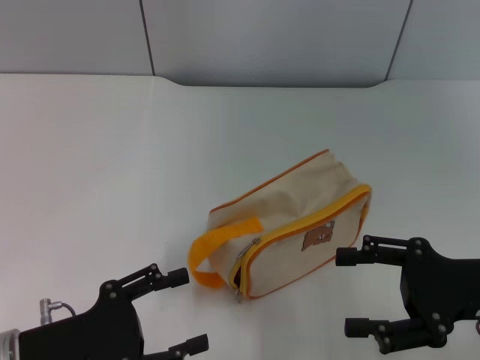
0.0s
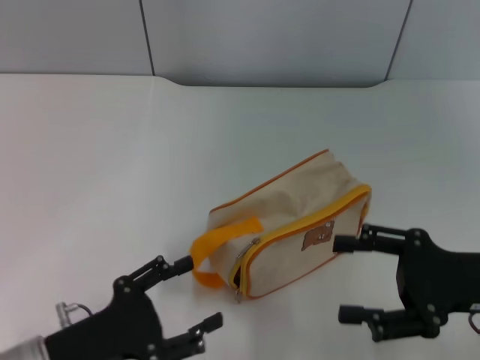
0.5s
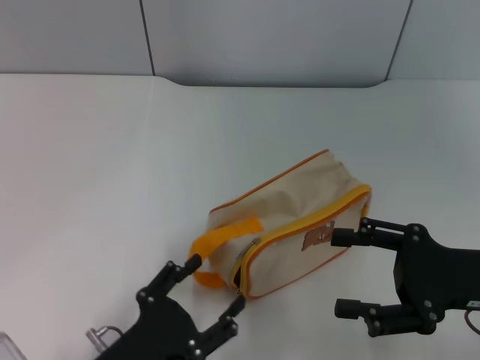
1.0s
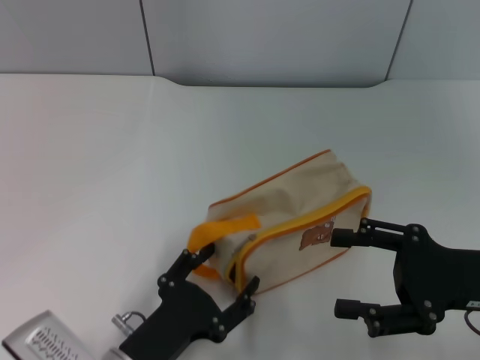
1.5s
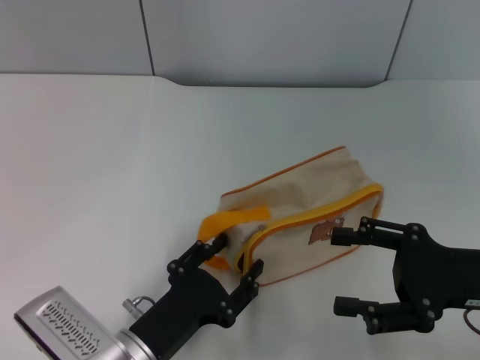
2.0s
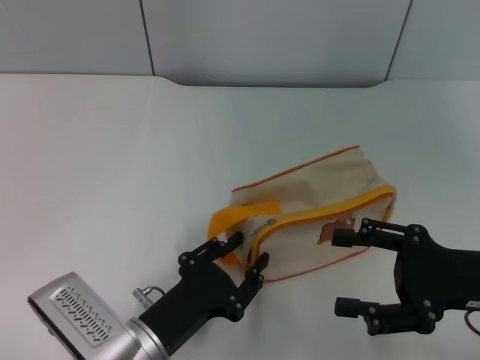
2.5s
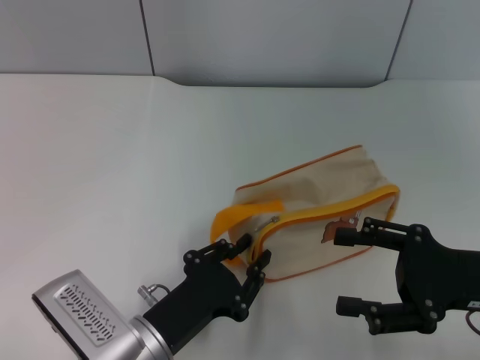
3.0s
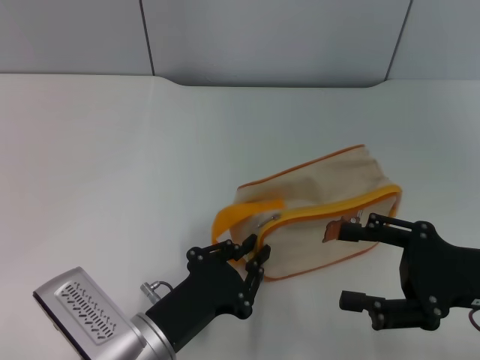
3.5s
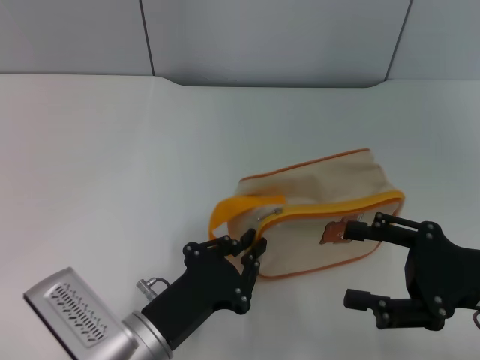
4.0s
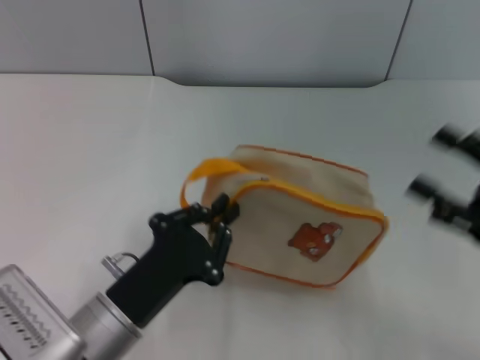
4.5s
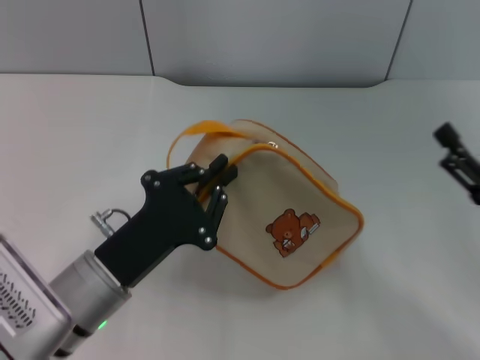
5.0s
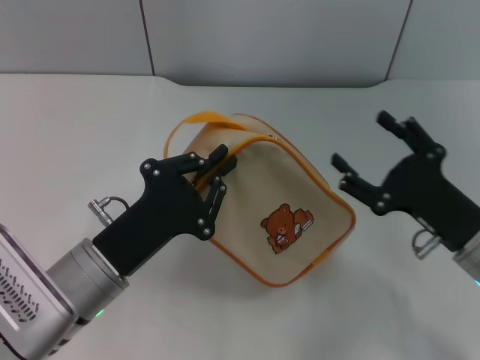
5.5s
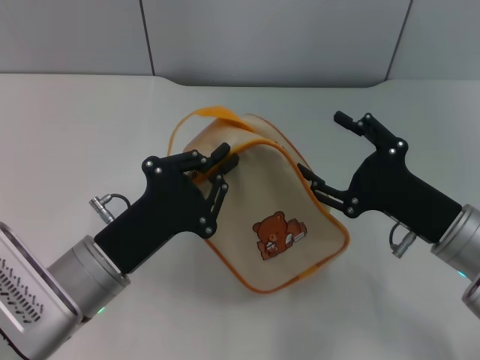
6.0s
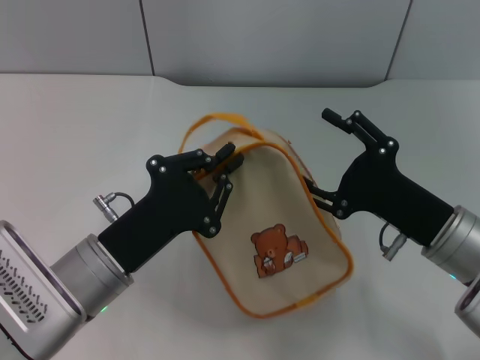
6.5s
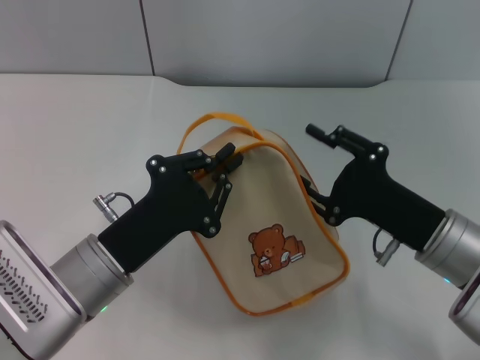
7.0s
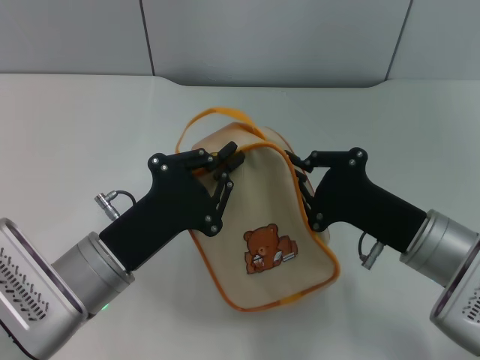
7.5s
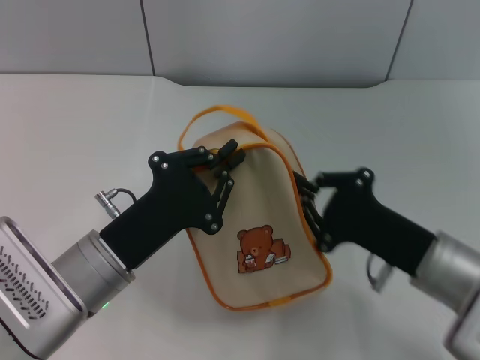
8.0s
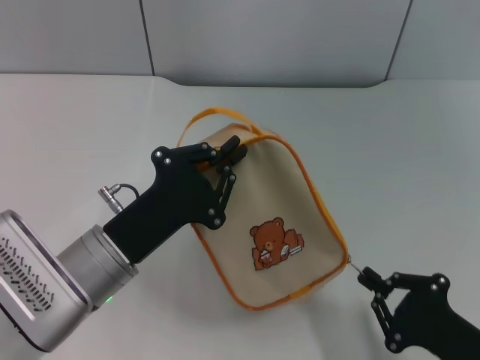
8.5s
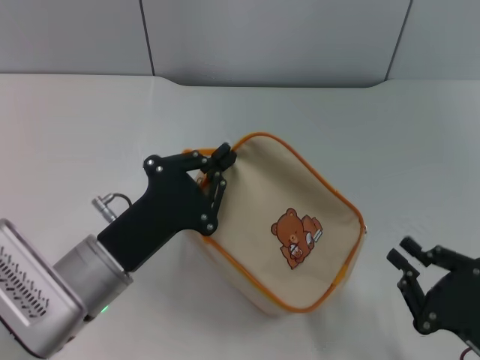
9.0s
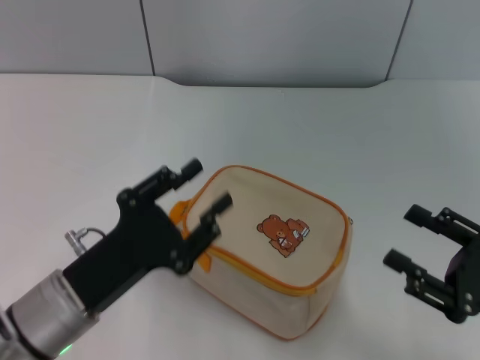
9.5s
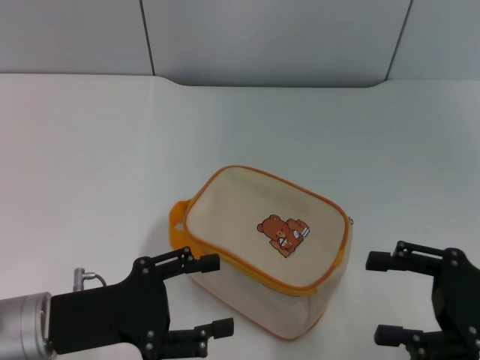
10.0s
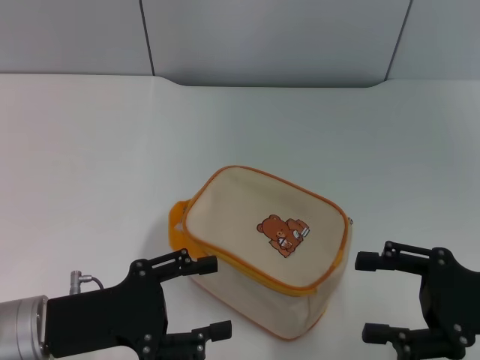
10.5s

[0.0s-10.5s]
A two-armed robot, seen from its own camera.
Step, 0.0s to 5.0s: Pick up the bag with left gripper.
Step, 5.5s to 8.5s: Unzip the zipper of bag with right gripper.
0.0s to 2.0s: The left gripper travels to the right by roughly 10 cm.
2.0s to 4.0s: The left gripper closes.
4.0s to 6.5s: The right gripper moves to the left, roughly 5 cm. The left gripper shifts roughly 5 cm forward.
6.5s to 8.5s: The right gripper moves backward and downward, some 15 cm, and closes.
8.5s to 10.5s: The right gripper shifts some 10 cm upward and forward, and opens its fingers, while the left gripper goes approximately 5 cm to the left, and opens.

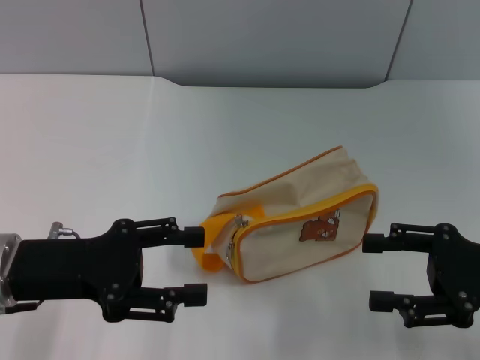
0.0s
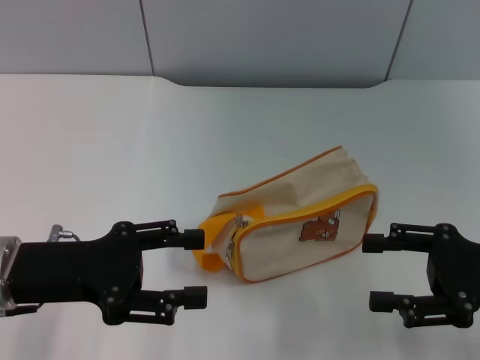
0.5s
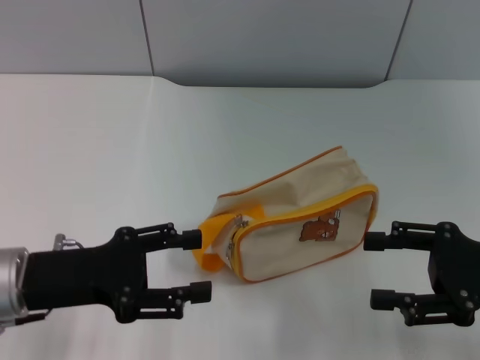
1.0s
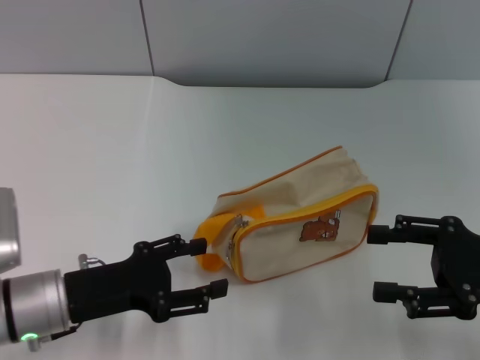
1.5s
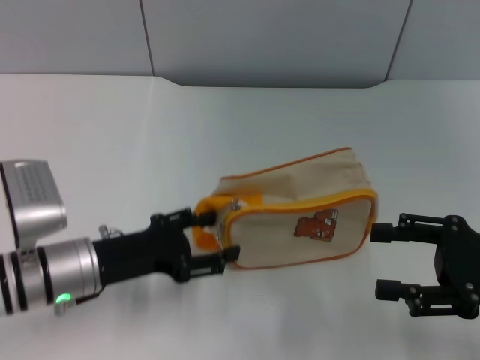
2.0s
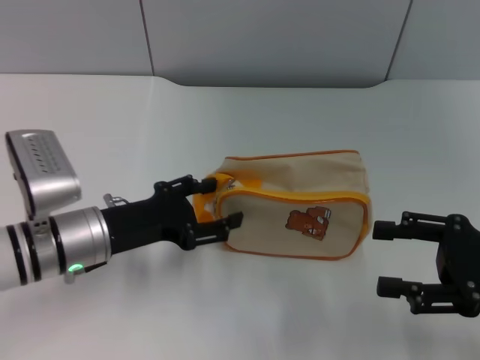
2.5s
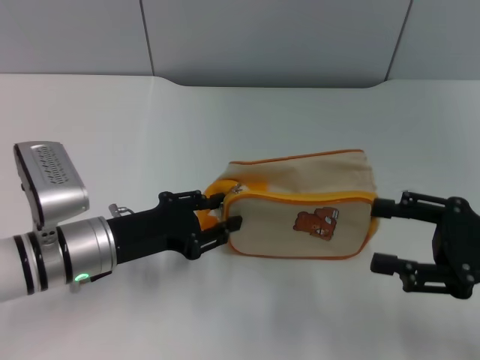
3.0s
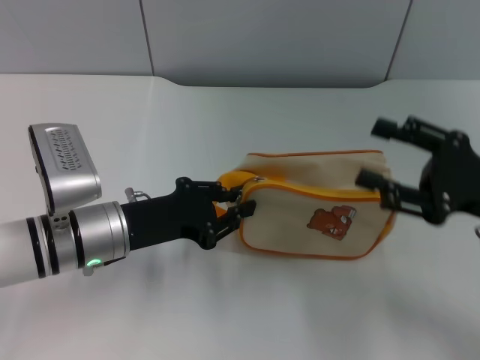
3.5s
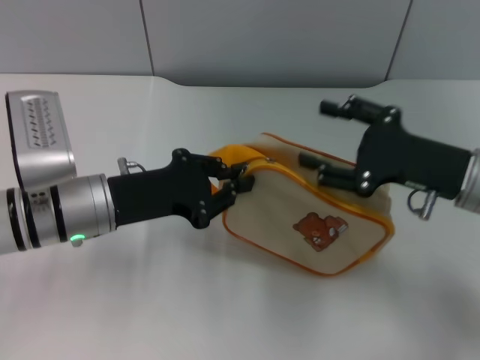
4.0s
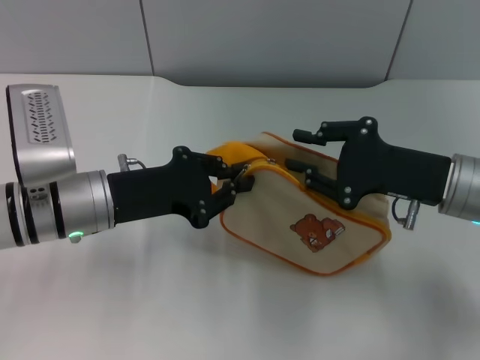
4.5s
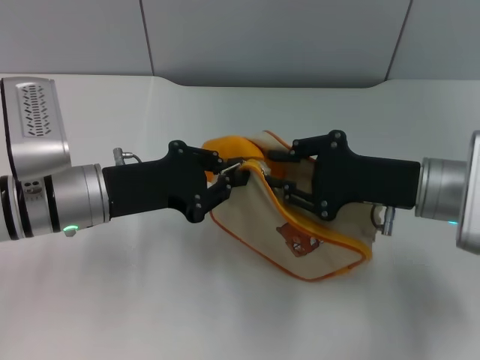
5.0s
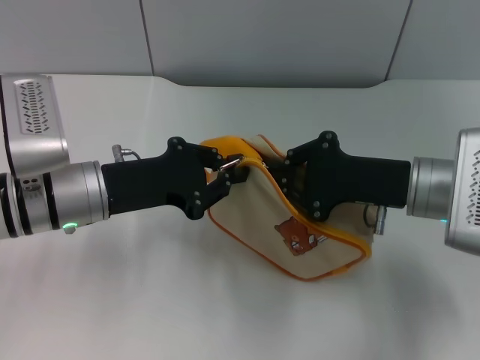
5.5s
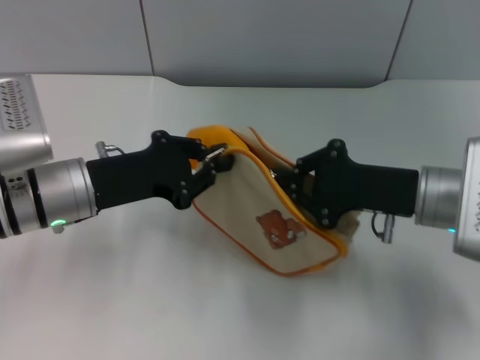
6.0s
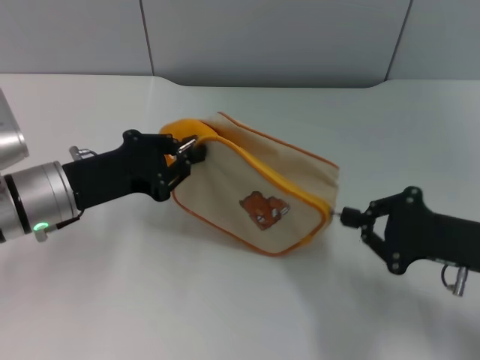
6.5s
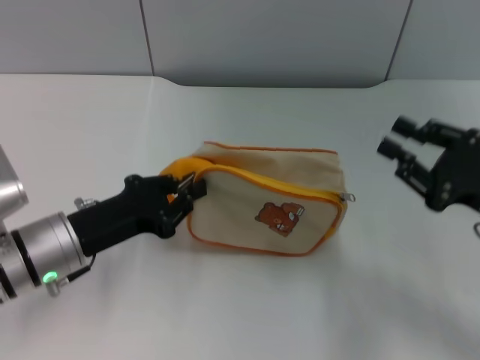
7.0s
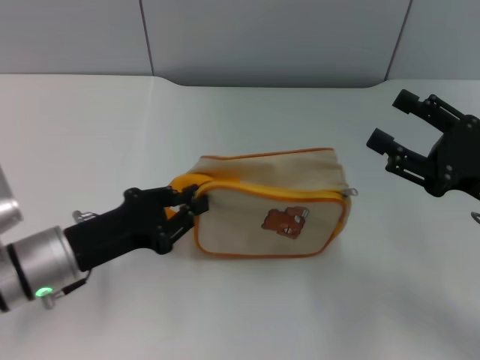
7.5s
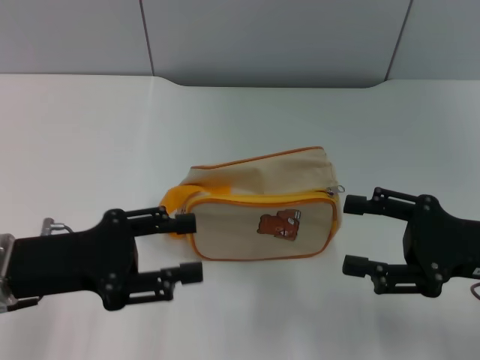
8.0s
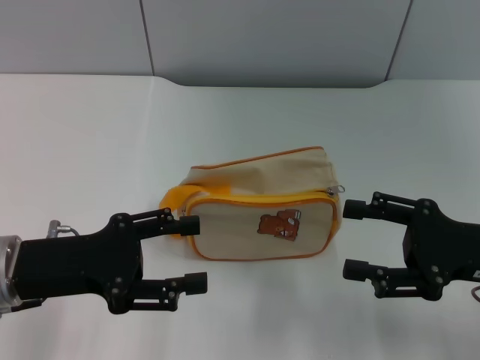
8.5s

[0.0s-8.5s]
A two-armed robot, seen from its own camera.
Step, 0.0s to 4.0s: Pick up the bag with left gripper.
Step, 4.5s to 6.5s: Unzip the zipper of bag with right gripper.
Step, 7.0s to 7.5s: Place the bag on the table with left gripper.
0.0s to 2.0s: The left gripper travels downward by roughly 5 cm.
2.0s to 4.0s: The left gripper ends up some 5 cm from where it was, and closes up. The right gripper is displaced forward and to the left by roughly 10 cm.
4.0s to 6.5s: The right gripper moves backward, roughly 5 cm, and closes its fingers.
6.5s to 8.5s: The right gripper opens its fingers; the left gripper heads backward, covering some 5 cm, and opens up.

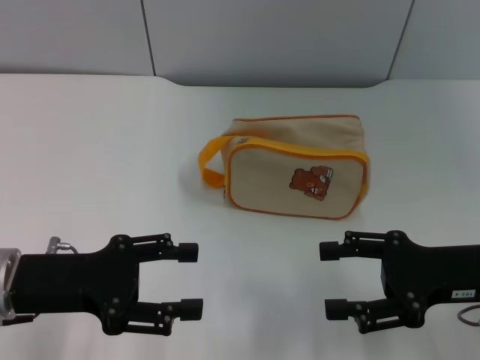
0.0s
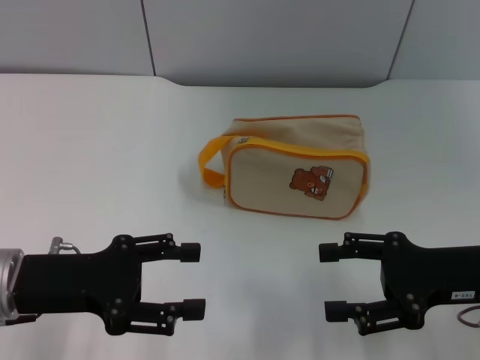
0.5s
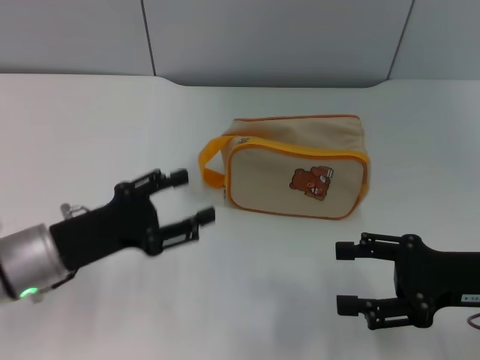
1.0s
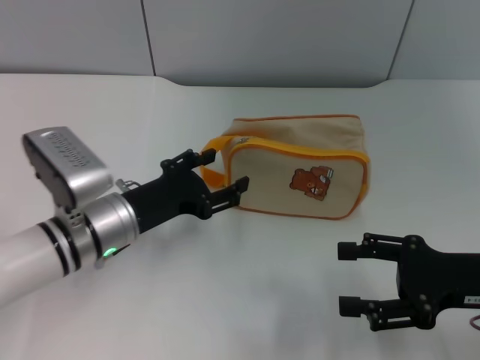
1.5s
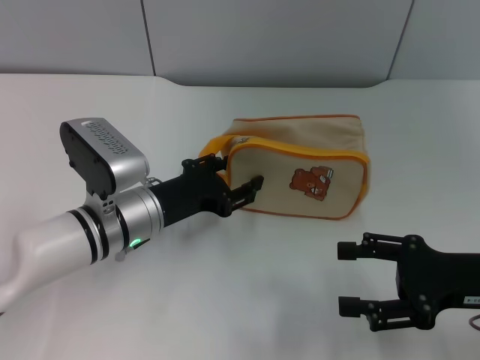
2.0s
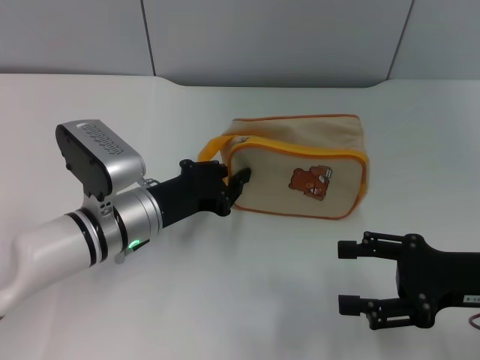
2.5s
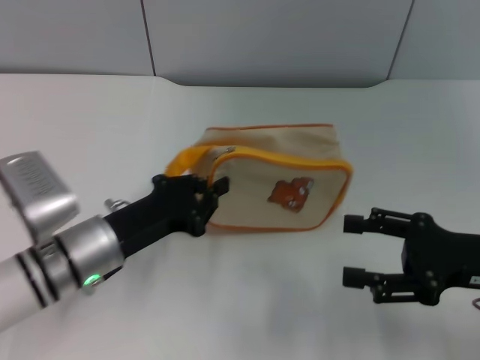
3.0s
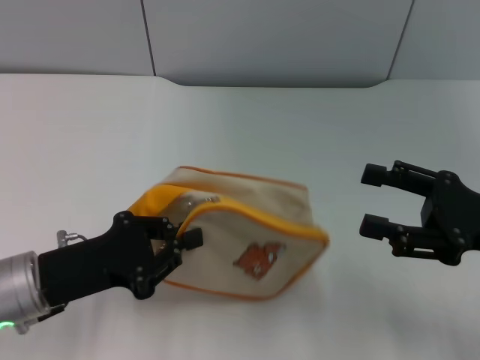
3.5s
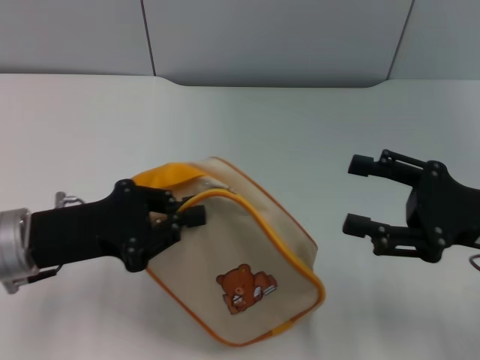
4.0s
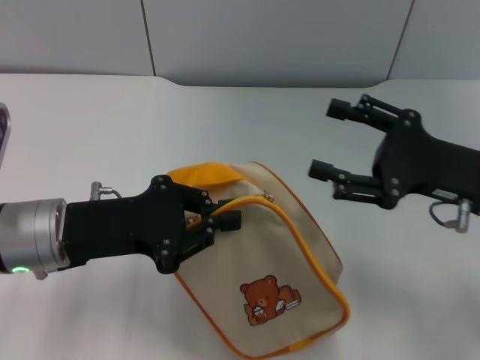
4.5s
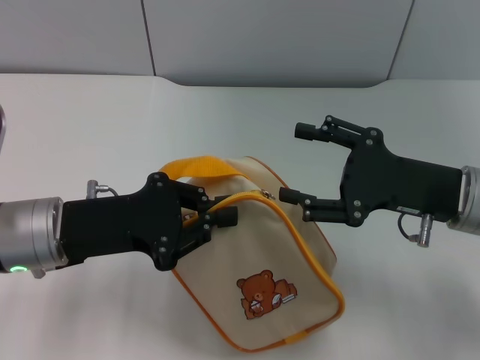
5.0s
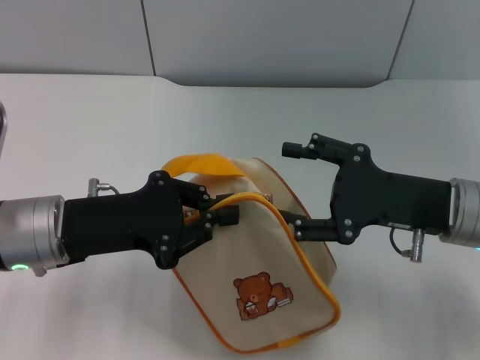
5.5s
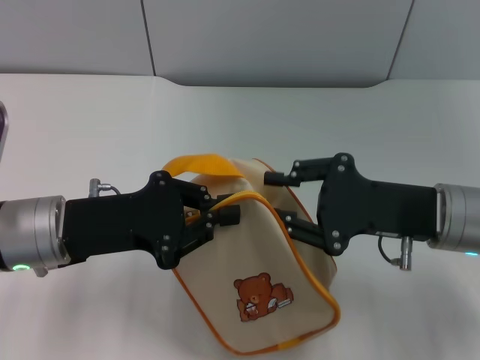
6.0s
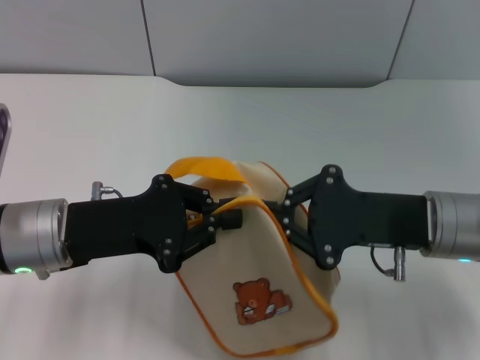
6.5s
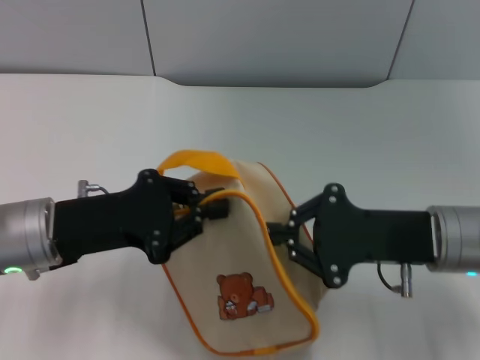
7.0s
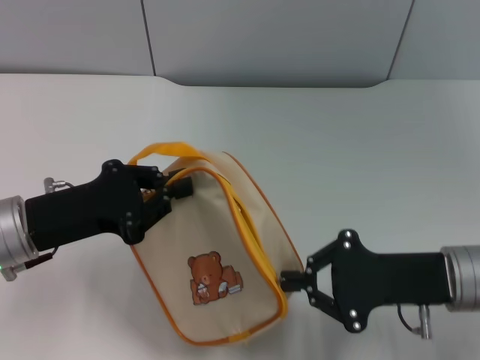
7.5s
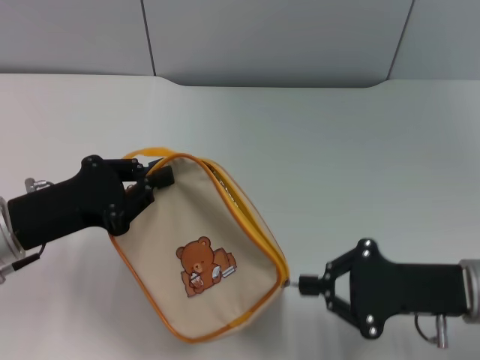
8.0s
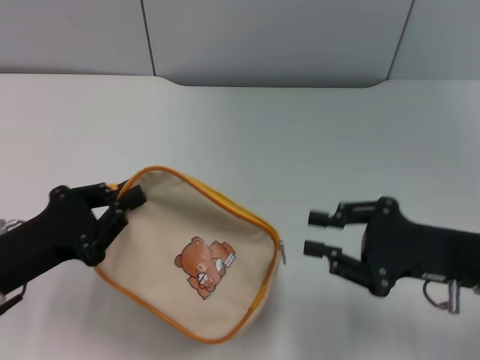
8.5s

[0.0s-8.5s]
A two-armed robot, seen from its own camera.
Step, 0.0s to 3.5s: Pick up the bag with left gripper.
Step, 4.0s to 8.0s: Unzip the zipper of bag with right gripper.
0.0s to 2.0s: The left gripper is displaced to the right, forward and downward by some 15 cm.
2.0s to 4.0s: The left gripper goes some 10 cm to the left, upward and backward, and closes up.
4.0s to 6.5s: The right gripper shifts some 10 cm to the left, and closes its fingers.
6.5s to 8.5s: The left gripper moves to the left and backward, roughly 10 cm; the right gripper changes place by some 5 cm.
